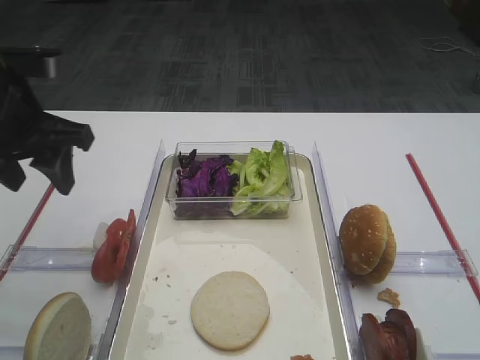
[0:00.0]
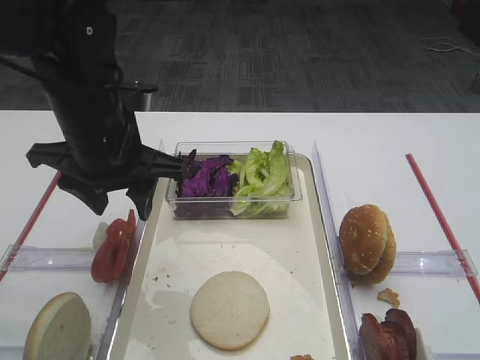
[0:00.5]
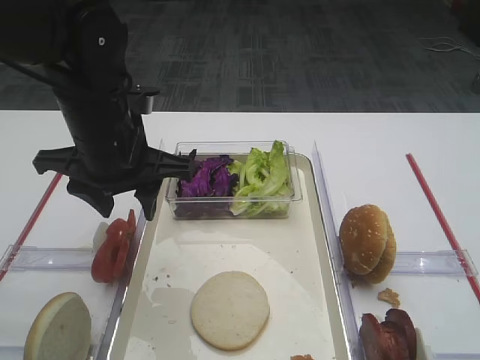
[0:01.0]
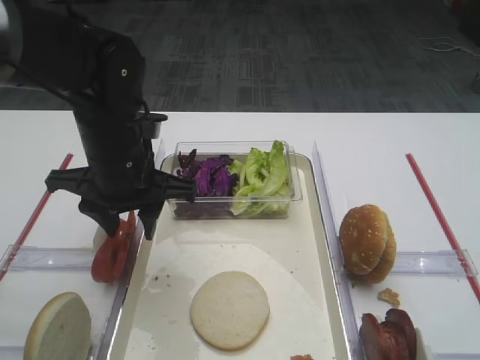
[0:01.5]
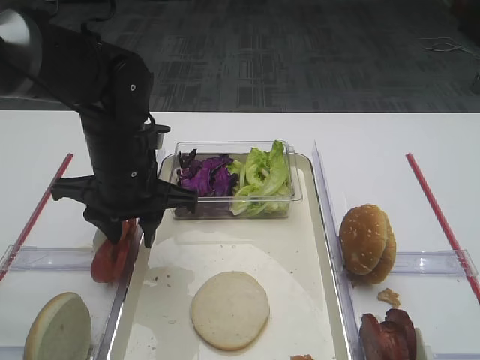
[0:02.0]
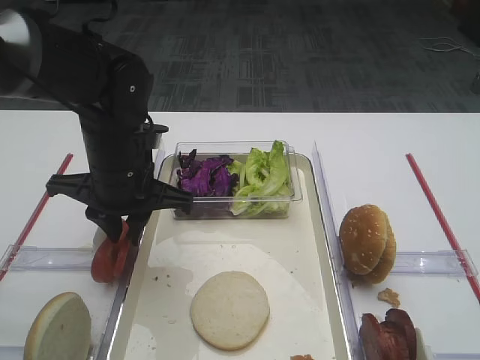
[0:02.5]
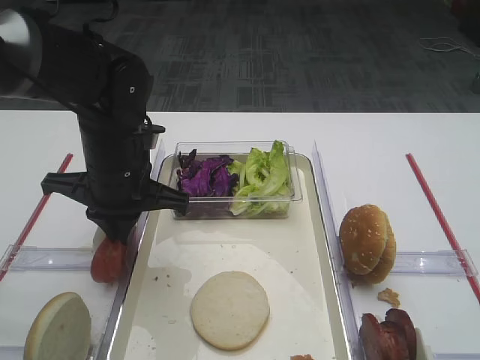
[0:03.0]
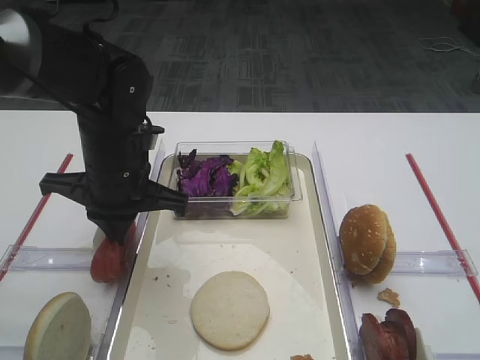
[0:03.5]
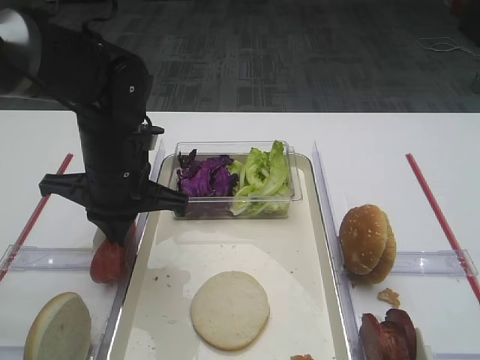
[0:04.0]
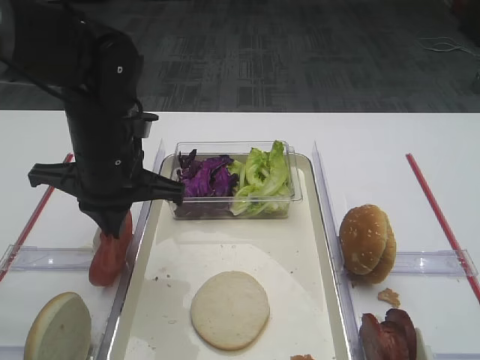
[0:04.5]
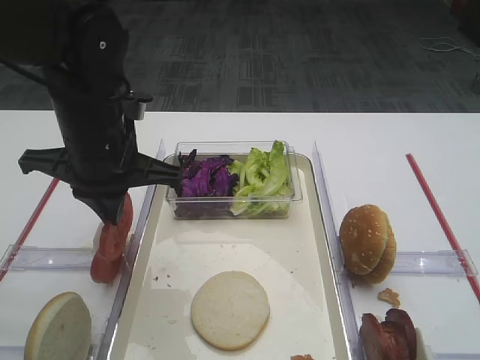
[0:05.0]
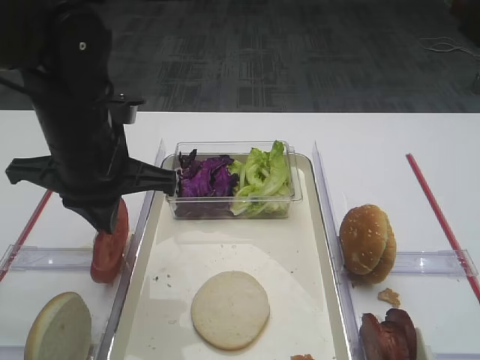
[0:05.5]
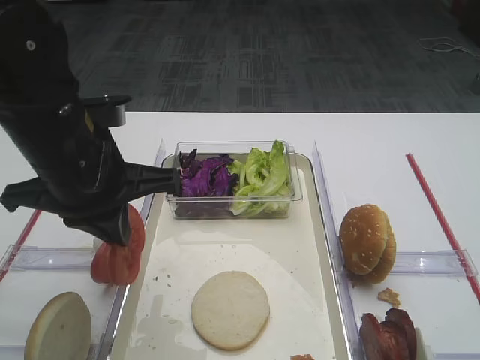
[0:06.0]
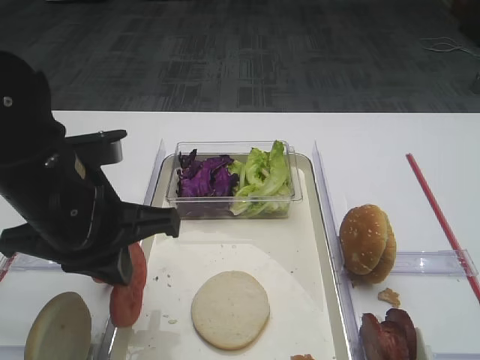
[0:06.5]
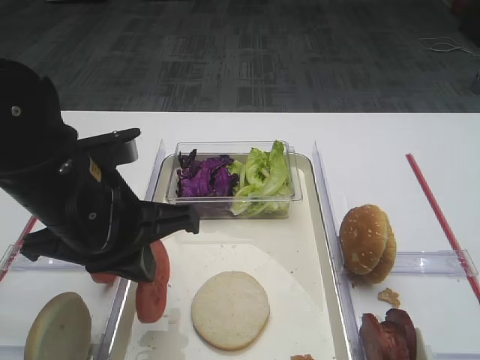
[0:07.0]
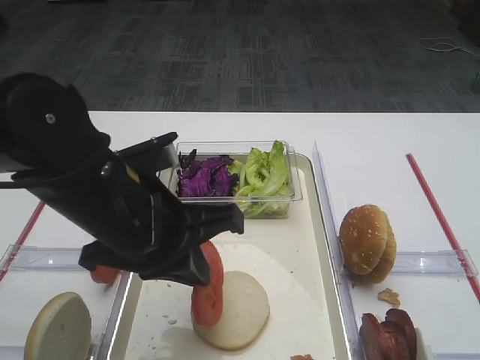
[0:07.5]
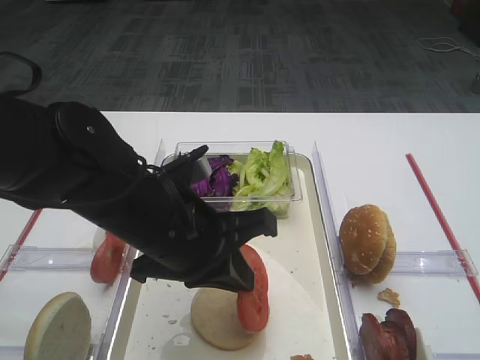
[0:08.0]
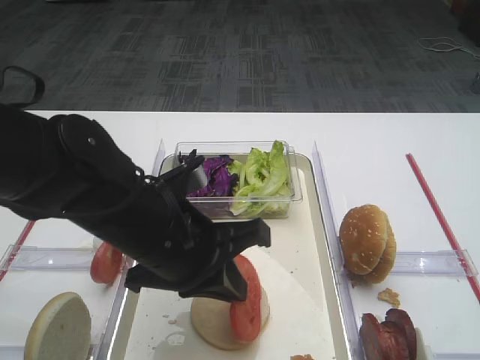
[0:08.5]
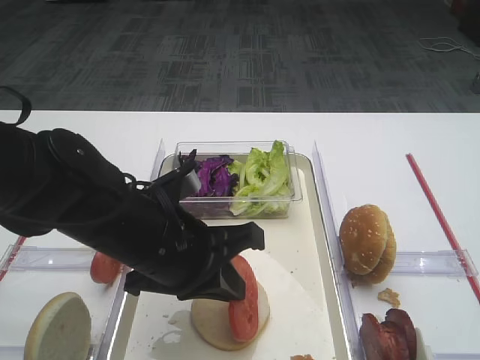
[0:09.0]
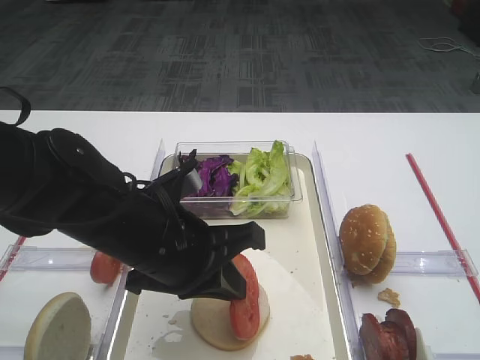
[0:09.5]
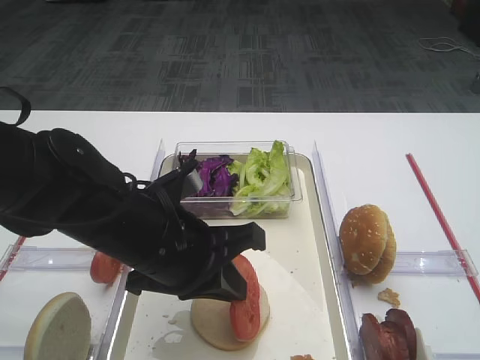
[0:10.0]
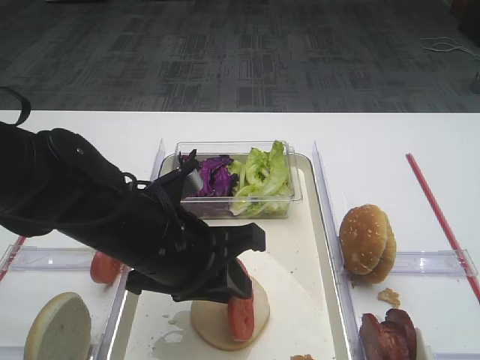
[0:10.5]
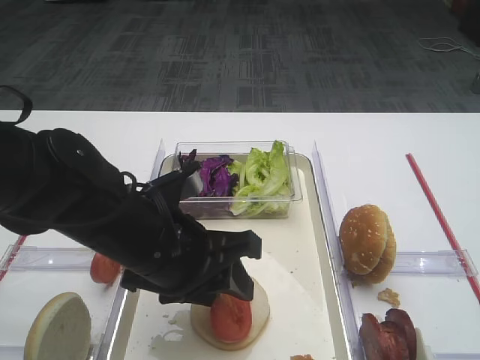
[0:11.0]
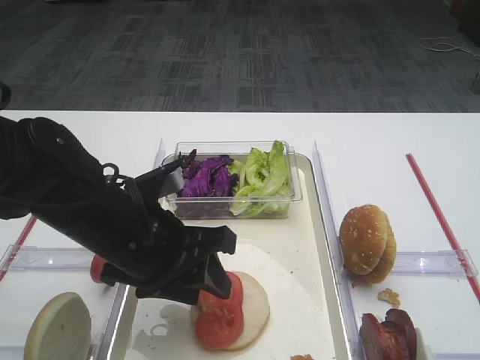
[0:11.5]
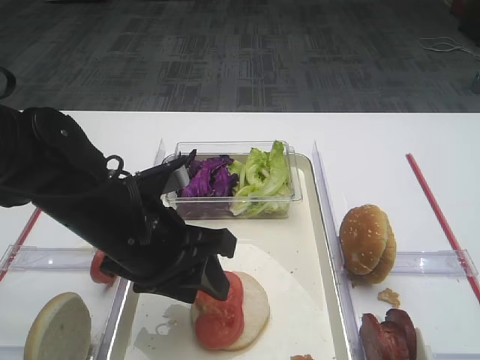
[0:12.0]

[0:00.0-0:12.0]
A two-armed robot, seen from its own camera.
Step, 0:00.0 to 0:05.0: Pick up the tomato slice with the left gripper.
0:00.0 to 0:02.0: The left gripper goes roughly 15 cm to the right and downward.
0:02.0 to 0:04.0: The left gripper closes up.
0:04.0 to 0:06.0: The left gripper shifts some 10 cm backward and upward.
0:06.0 to 0:08.0: The left gripper goes approximately 10 cm to the right and downward.
0:08.0 to 0:10.0: There are only small adjustments of the grippers.
0:10.0 to 0:12.0: The left gripper opens up.

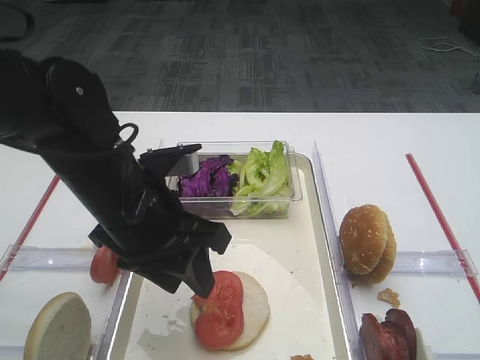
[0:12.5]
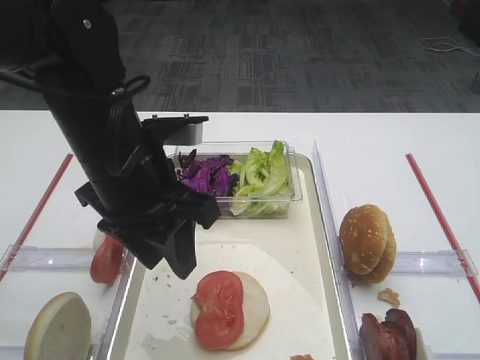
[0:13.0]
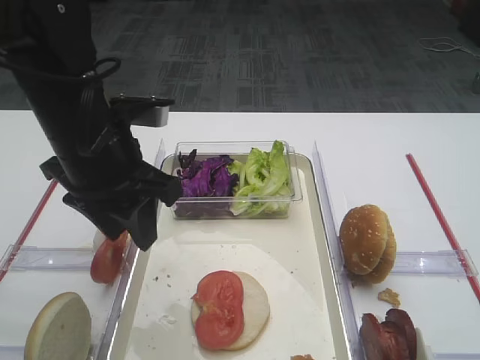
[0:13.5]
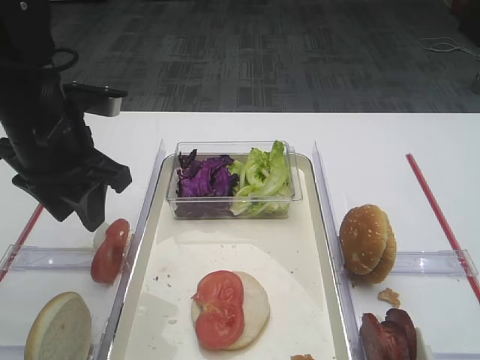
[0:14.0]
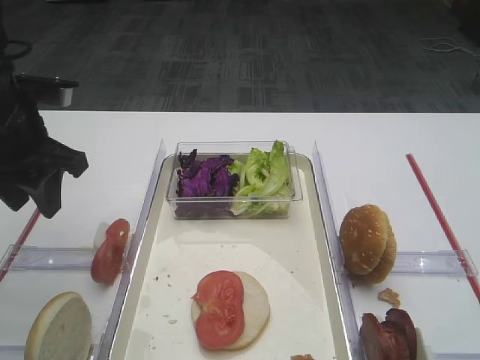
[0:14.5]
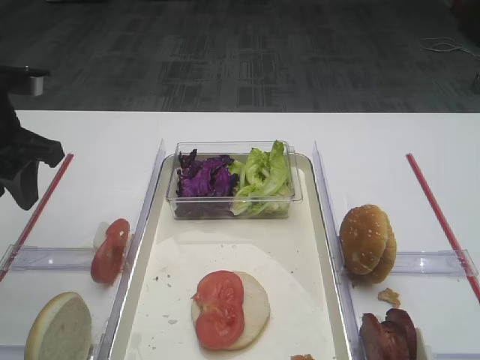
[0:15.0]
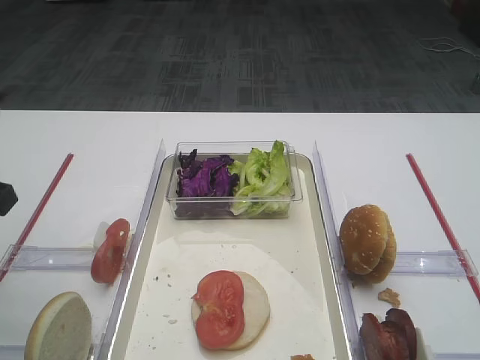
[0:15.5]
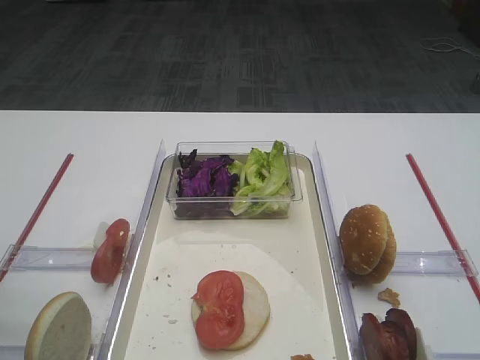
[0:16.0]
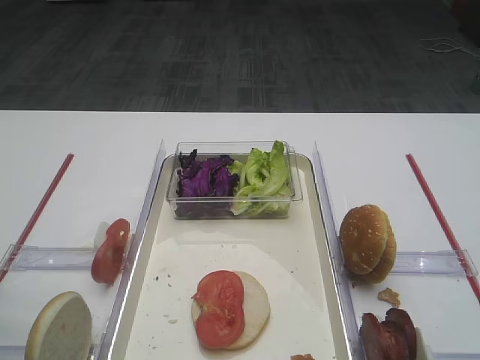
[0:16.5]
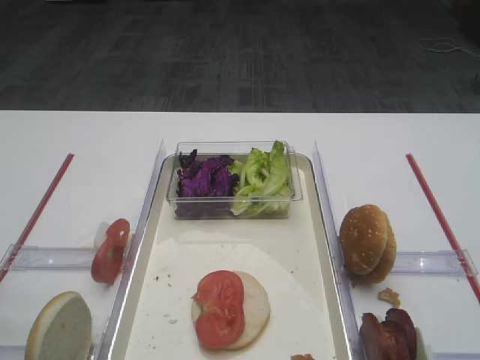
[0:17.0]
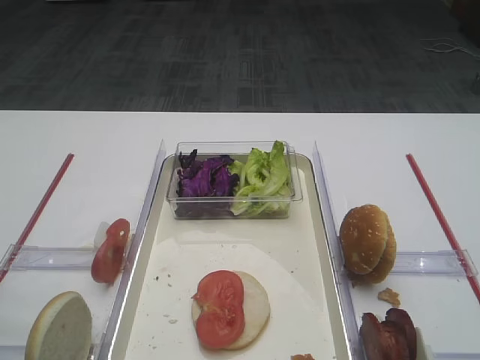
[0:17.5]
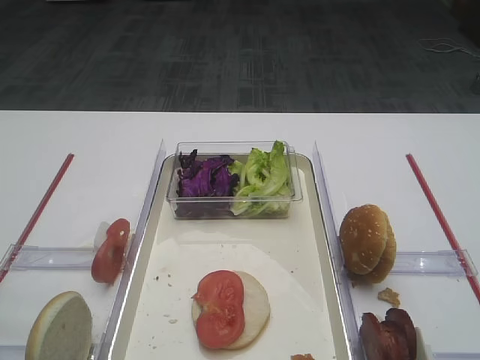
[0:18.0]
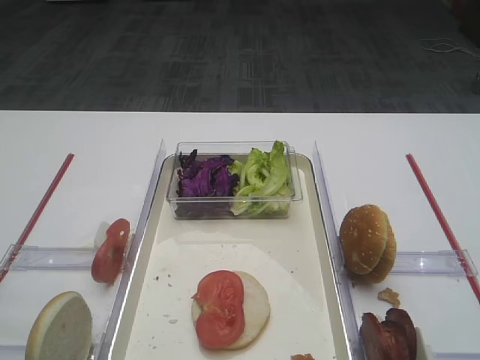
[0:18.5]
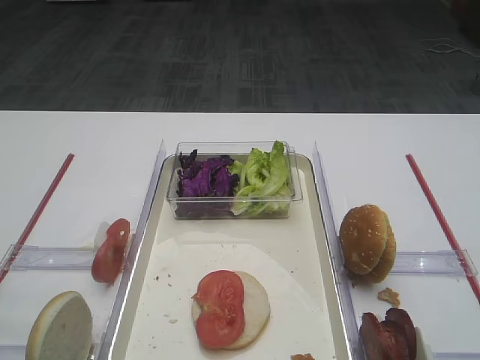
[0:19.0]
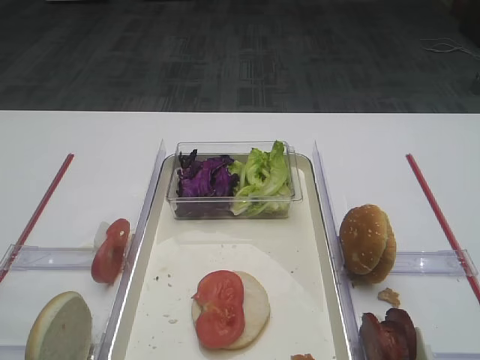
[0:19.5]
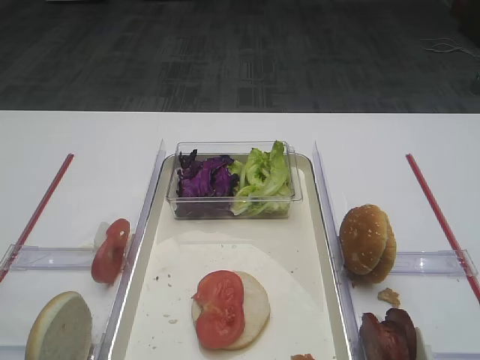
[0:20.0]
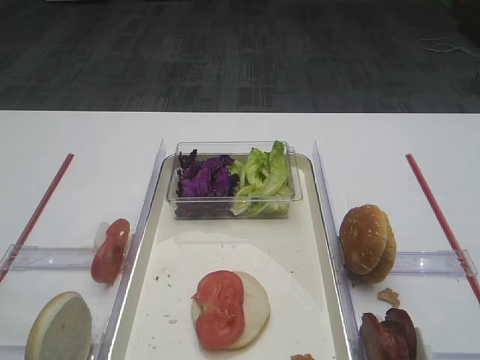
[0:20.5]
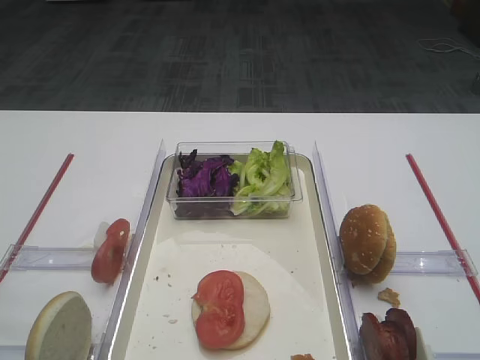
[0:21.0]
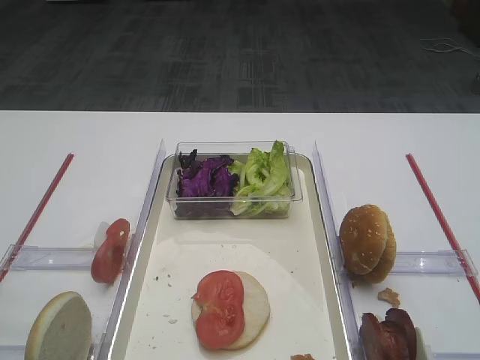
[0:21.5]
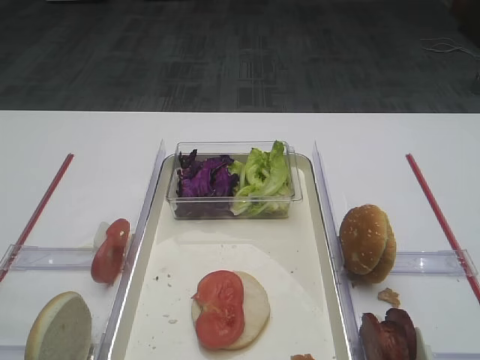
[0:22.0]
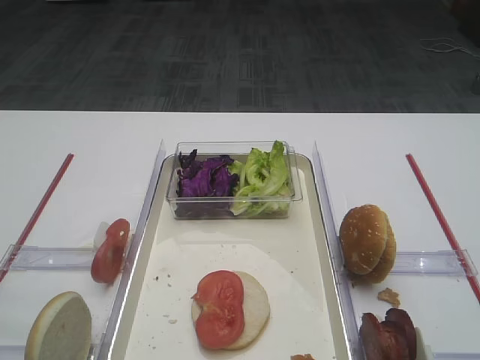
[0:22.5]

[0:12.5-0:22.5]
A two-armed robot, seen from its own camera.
0:12.5 to 0:14.5: The left gripper goes approximately 15 cm to the left and forward.
0:14.5 to 0:16.5: The left gripper goes about 15 cm backward.
0:20.5 to 0:22.5: The two grippers keep their place.
